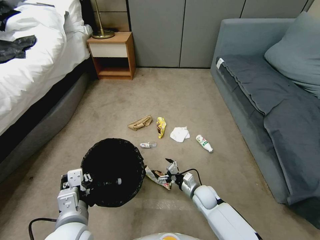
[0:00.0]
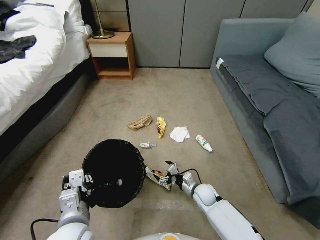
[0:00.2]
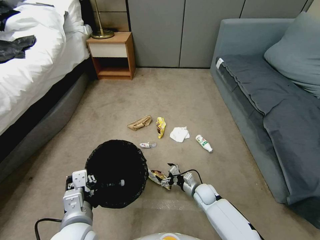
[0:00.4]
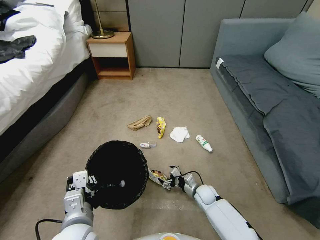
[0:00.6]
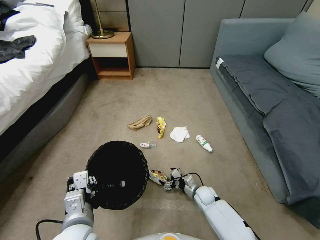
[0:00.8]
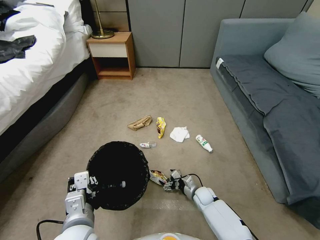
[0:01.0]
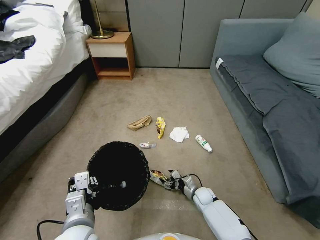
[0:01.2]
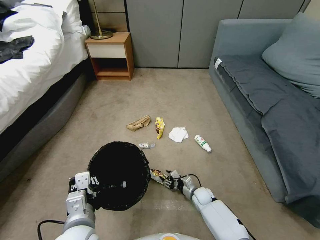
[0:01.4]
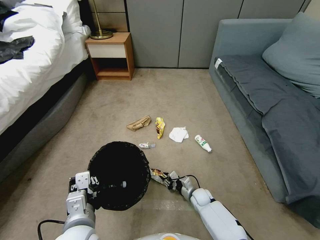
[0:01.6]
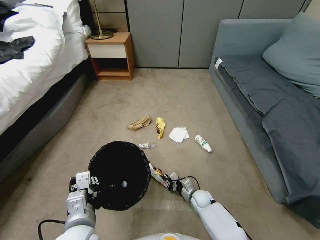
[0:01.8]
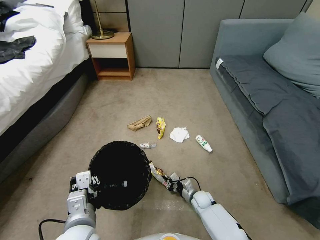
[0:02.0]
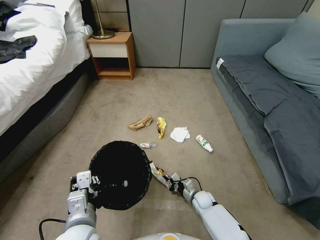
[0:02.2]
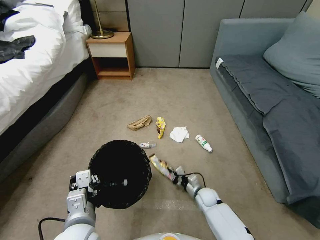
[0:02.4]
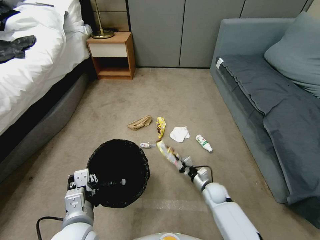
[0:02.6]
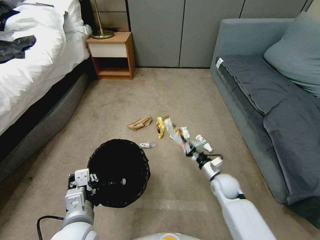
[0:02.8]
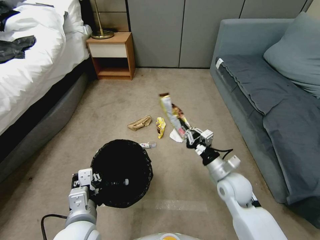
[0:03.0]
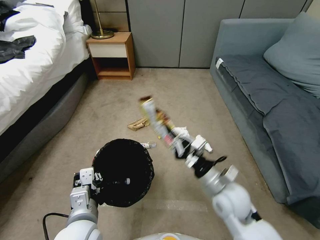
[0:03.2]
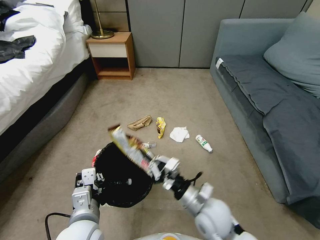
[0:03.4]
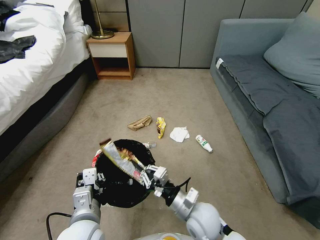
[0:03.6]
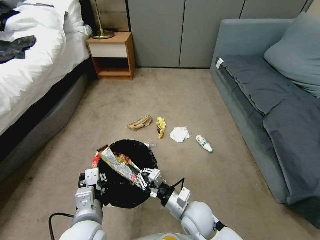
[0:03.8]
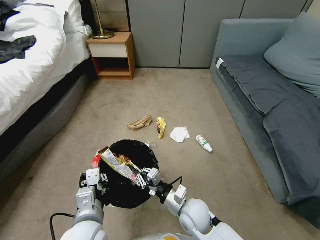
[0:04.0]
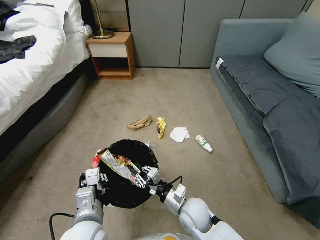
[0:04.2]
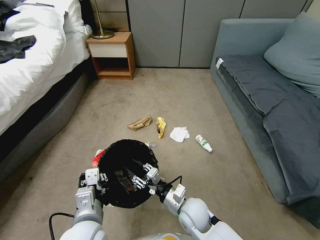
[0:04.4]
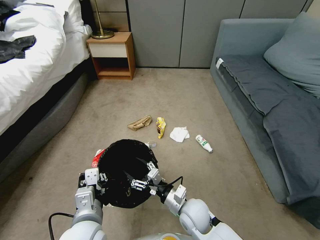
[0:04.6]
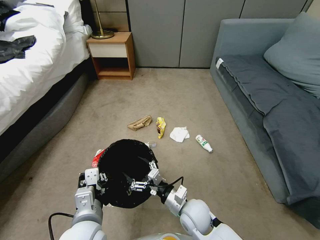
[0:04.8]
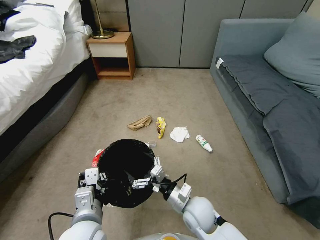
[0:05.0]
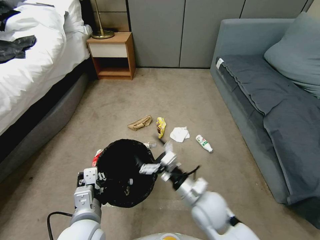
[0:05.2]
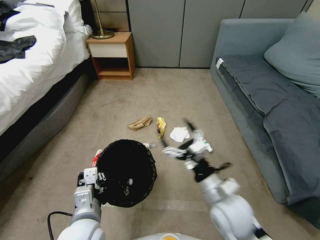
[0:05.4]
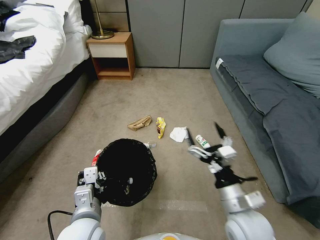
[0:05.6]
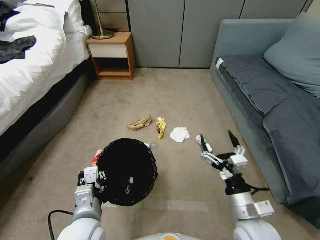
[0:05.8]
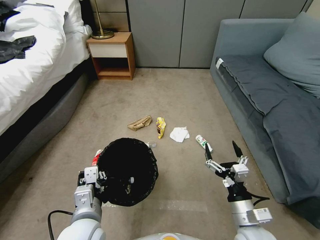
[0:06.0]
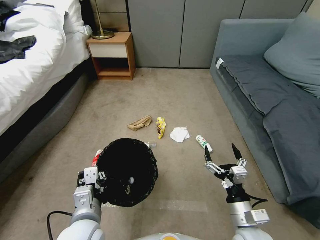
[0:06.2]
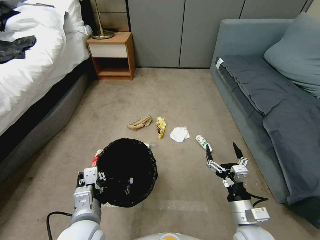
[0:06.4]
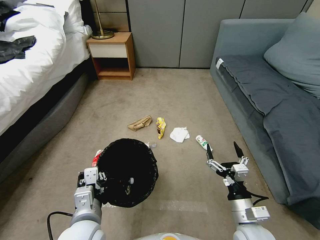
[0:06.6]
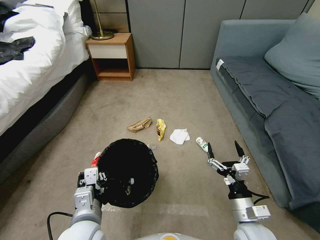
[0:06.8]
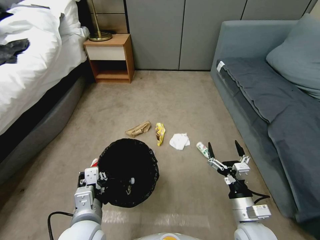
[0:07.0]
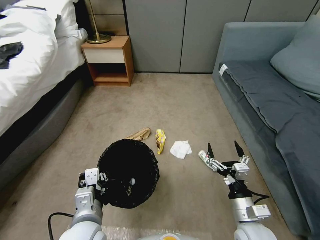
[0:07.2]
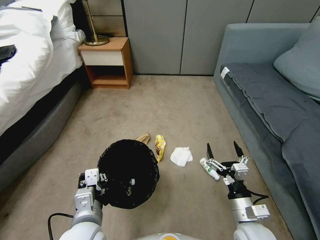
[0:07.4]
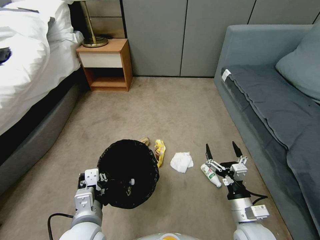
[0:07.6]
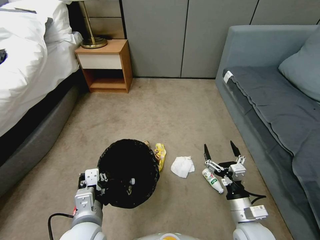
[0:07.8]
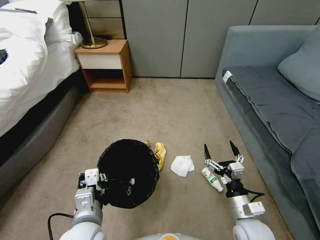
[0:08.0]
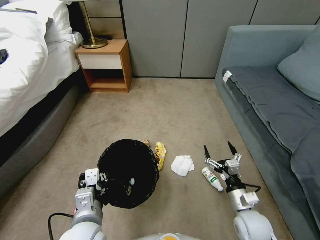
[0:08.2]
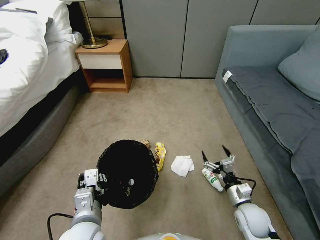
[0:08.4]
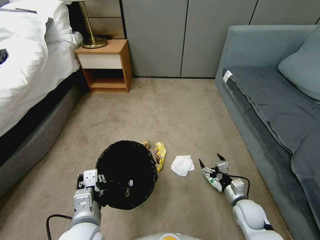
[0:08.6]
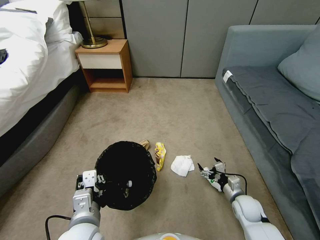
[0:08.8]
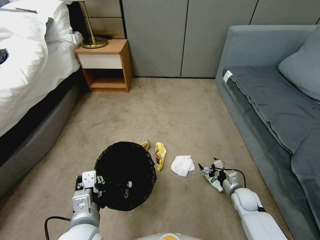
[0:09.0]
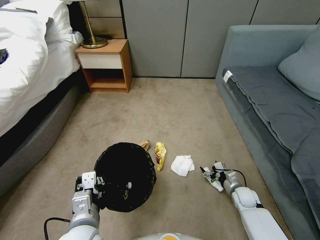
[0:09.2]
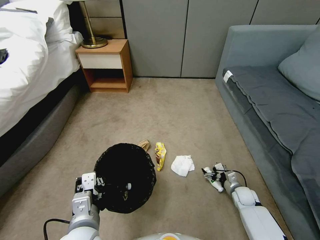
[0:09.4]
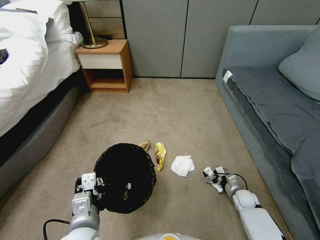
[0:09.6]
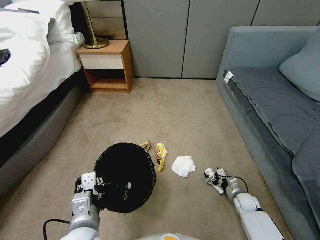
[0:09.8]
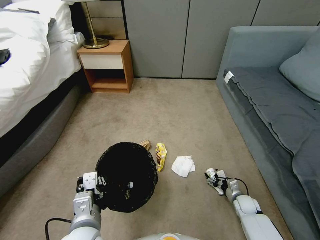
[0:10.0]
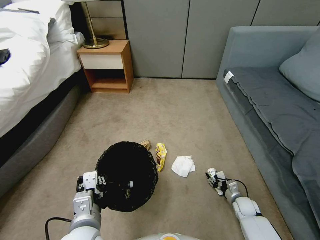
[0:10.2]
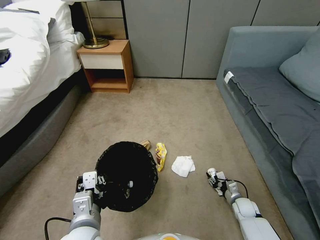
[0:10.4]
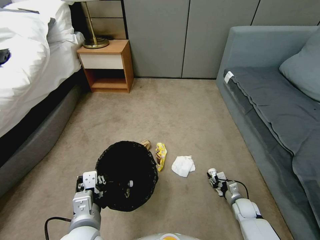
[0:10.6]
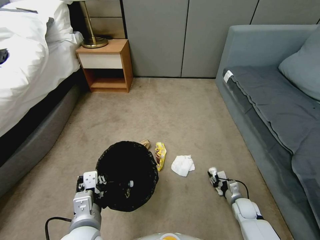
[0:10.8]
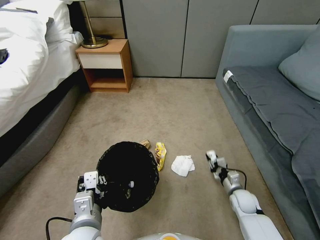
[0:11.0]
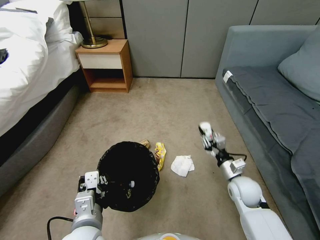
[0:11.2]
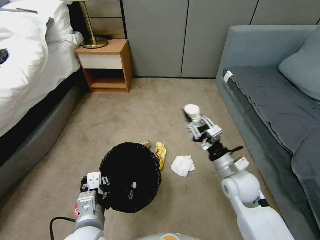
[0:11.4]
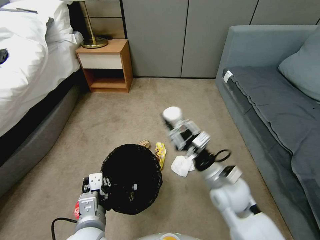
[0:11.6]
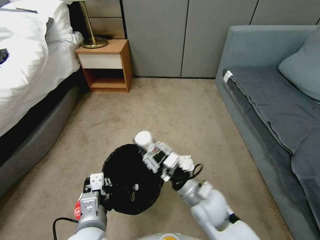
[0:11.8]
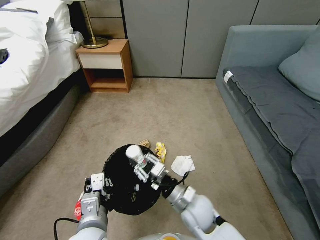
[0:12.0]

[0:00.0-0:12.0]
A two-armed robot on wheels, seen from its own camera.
Task of the whole recording: Pick up the trash bin, then pick up the garbage from the floor and place it into the trash bin.
0:00.0 to 0:01.6: The right gripper shifts roughly 10 cm downward, and closes its fingers.
0:01.6 to 0:03.0: The right gripper shifts approximately 25 cm upward.
0:03.0 to 0:04.4: The right gripper travels to the left, downward and backward by approximately 15 cm, and opens its fingers.
0:04.4 to 0:06.0: The right gripper moves to the right, backward and upward, about 20 cm, and opens.
0:07.6 to 0:09.0: The right gripper shifts roughly 20 cm downward, forward and to the right.
0:09.0 to 0:10.4: The right gripper is displaced downward by approximately 5 cm, and closes up.
0:10.4 to 0:12.0: The right gripper is displaced to the left and upward by roughly 35 cm.

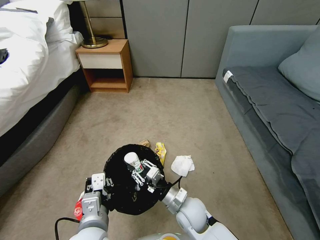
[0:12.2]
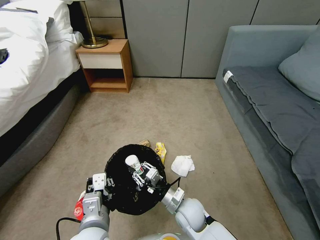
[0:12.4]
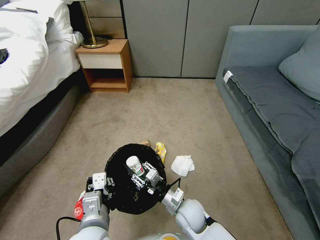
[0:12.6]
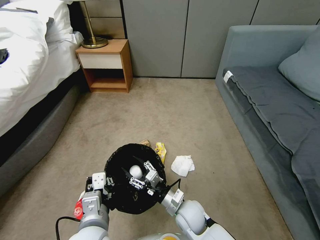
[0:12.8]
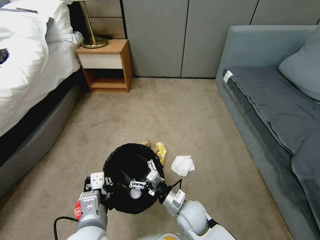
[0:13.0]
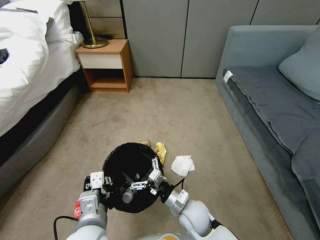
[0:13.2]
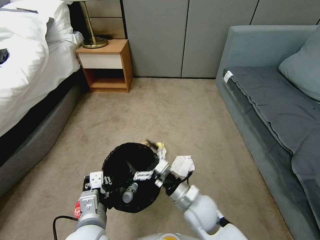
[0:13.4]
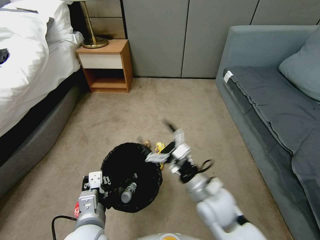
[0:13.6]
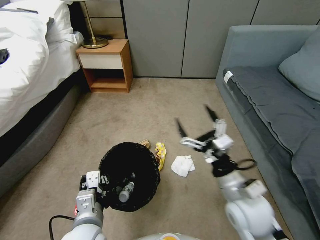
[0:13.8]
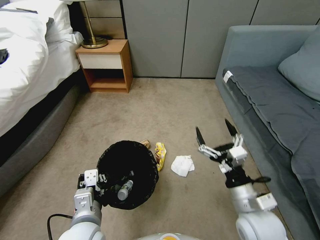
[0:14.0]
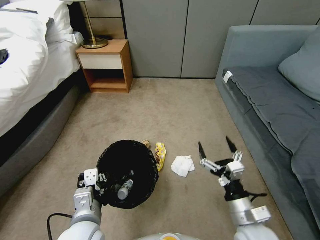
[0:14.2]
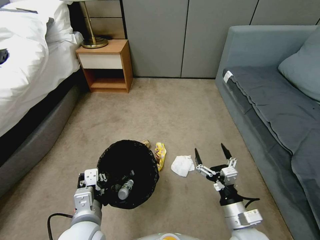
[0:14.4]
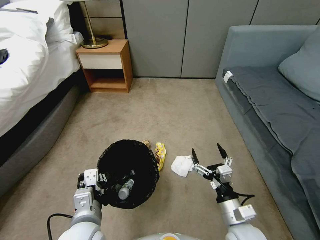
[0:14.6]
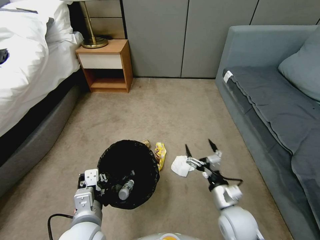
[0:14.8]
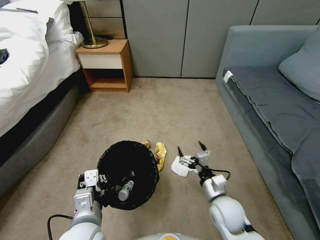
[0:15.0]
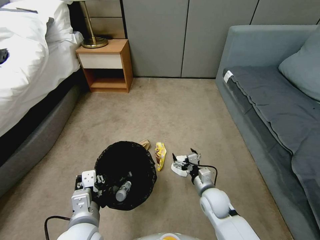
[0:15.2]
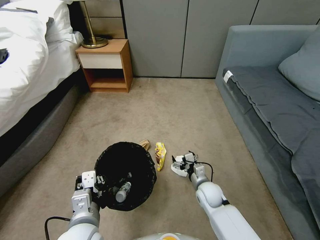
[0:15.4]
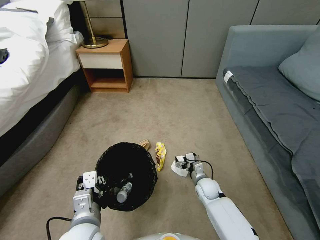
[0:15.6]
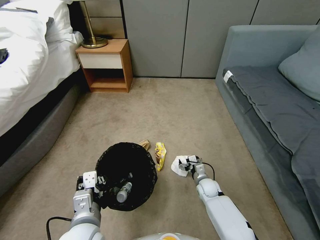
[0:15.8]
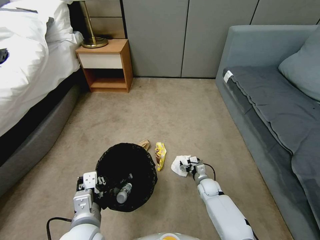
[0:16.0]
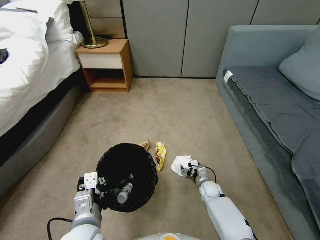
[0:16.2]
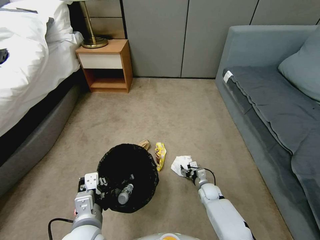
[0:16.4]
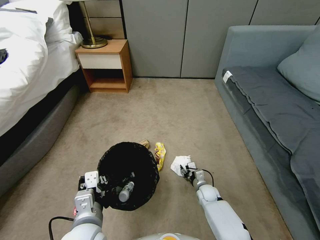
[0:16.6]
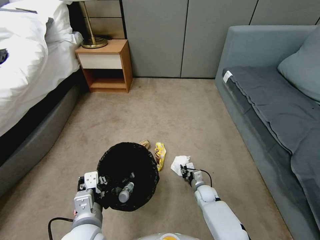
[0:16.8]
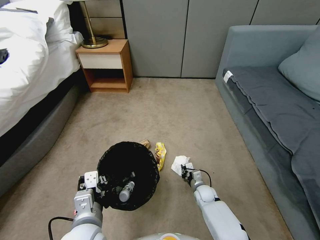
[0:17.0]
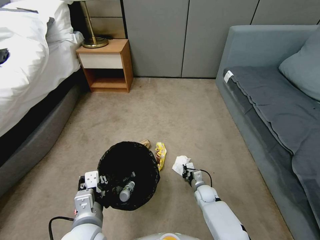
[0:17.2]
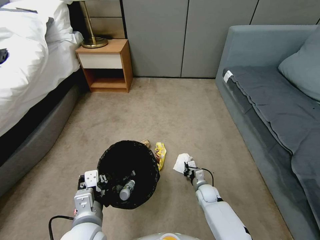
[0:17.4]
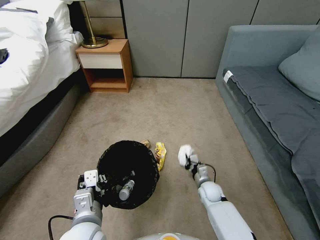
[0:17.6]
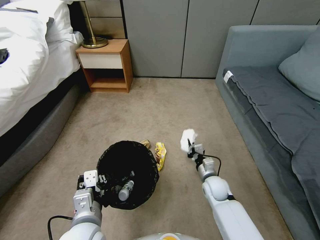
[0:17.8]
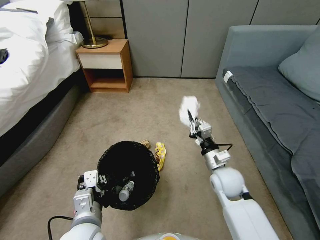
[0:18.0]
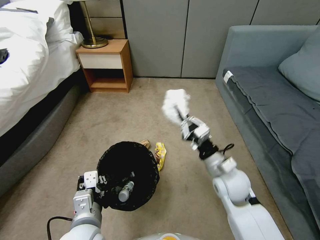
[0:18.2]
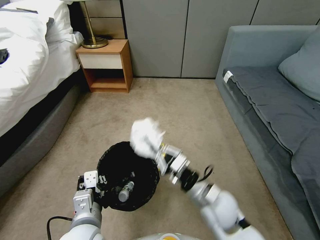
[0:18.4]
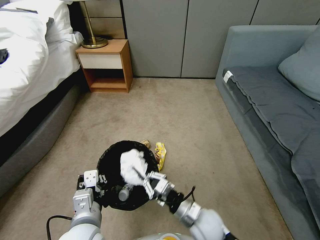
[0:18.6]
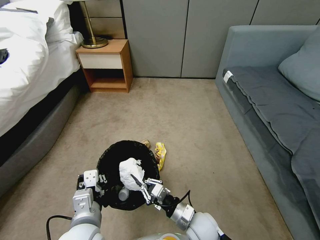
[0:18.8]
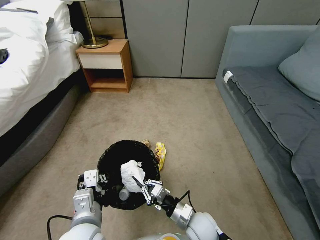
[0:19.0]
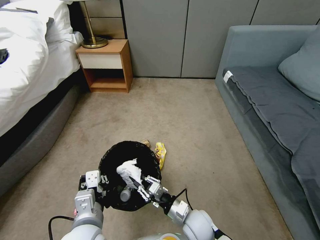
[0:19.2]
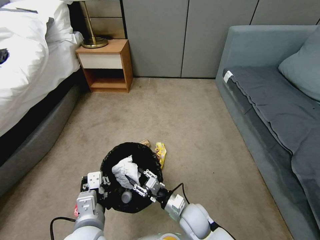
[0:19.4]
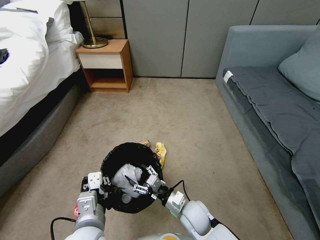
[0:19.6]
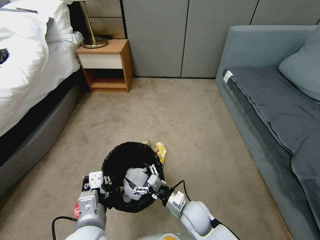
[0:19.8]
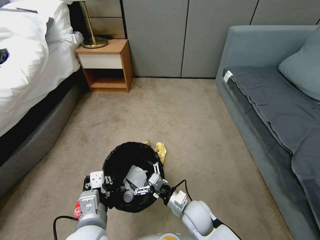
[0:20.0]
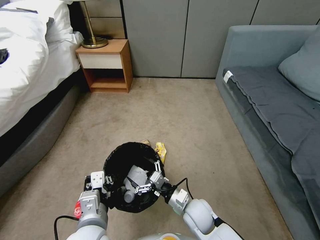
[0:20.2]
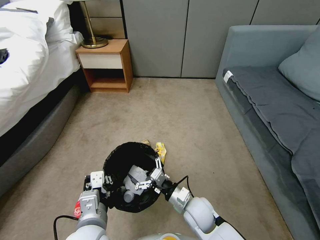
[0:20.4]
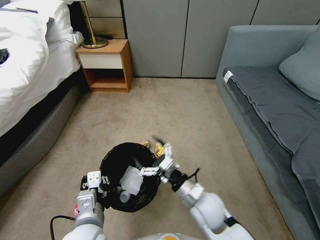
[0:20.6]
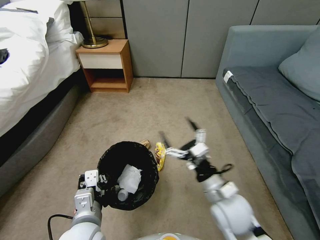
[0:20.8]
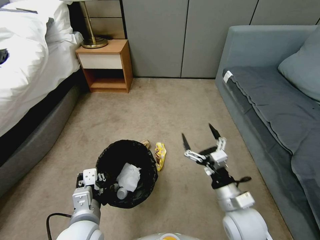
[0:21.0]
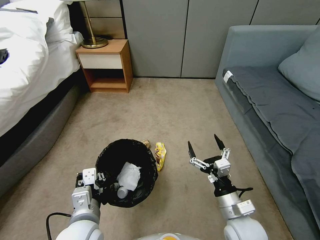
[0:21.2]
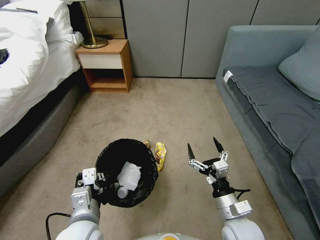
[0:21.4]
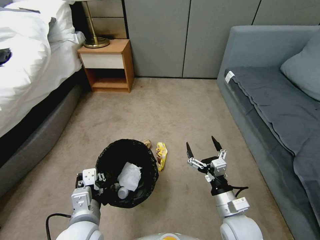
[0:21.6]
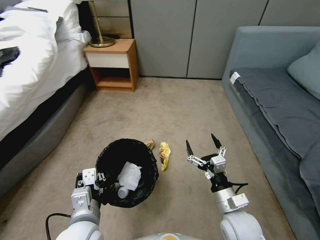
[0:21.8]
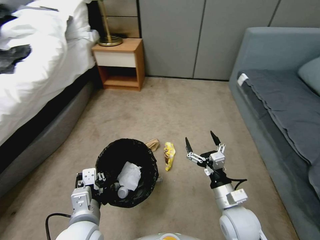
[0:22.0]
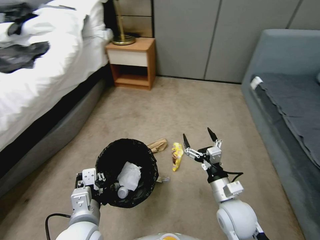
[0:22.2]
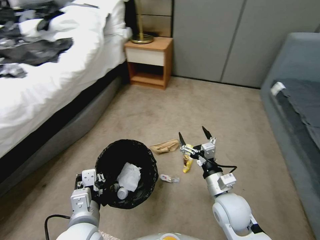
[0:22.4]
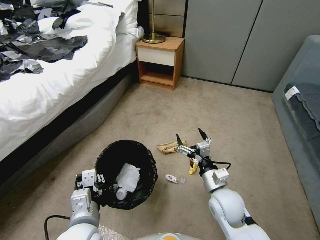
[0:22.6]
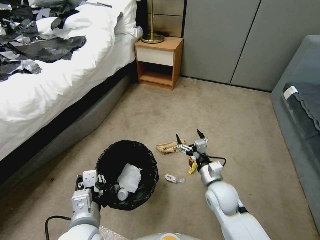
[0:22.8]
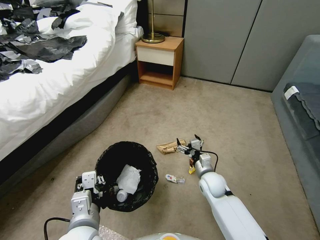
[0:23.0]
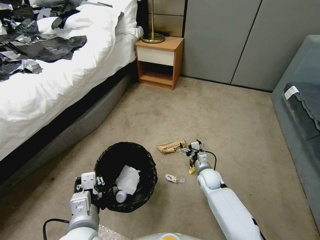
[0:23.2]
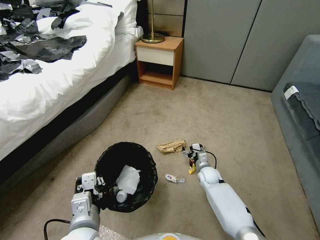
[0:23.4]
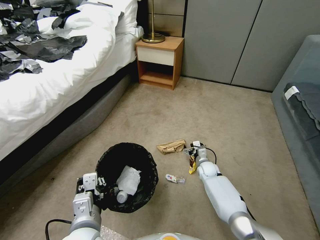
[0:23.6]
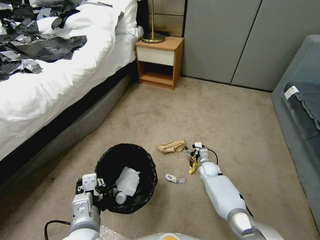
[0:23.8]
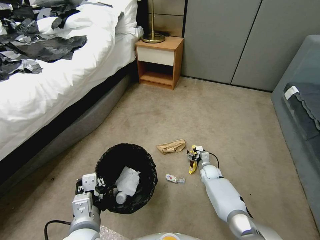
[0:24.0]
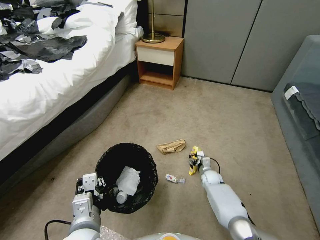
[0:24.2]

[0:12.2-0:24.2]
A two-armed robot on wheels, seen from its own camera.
Task of the whole recording: Pick up the trash bin, then pick up the garbage from the floor and place it into the trash bin.
0:12.2 to 0:13.8: The right gripper travels upward and to the right by about 20 cm, and opens up.
0:13.8 to 0:15.2: The right gripper shifts roughly 20 cm downward.
0:15.2 to 0:16.6: The right gripper goes about 15 cm downward and forward, and closes.
0:16.6 to 0:18.2: The right gripper travels upward by approximately 30 cm, and closes up.
0:18.2 to 0:19.8: The right gripper moves downward and to the left, roughly 20 cm, and opens up.
0:19.8 to 0:21.2: The right gripper is displaced to the right, upward and backward by some 15 cm.
0:21.2 to 0:22.6: The right gripper heads forward, covering approximately 5 cm.
0:22.6 to 0:24.2: The right gripper is displaced downward and forward by approximately 25 cm.
